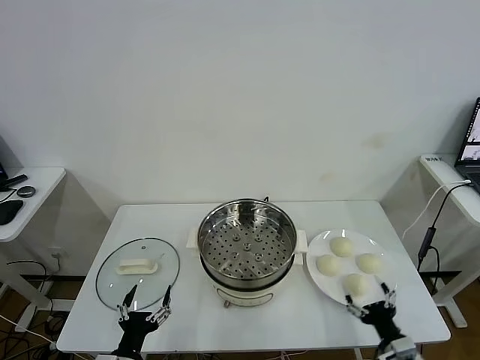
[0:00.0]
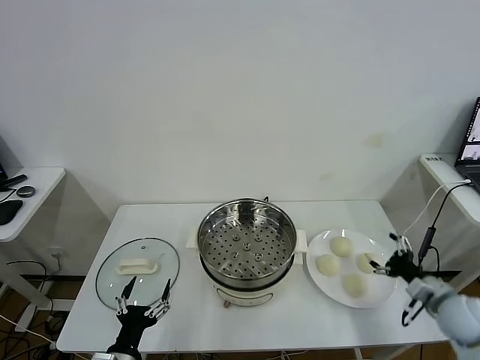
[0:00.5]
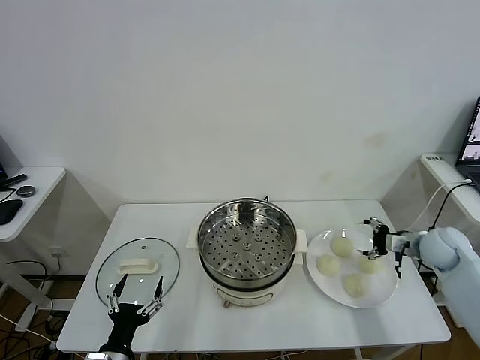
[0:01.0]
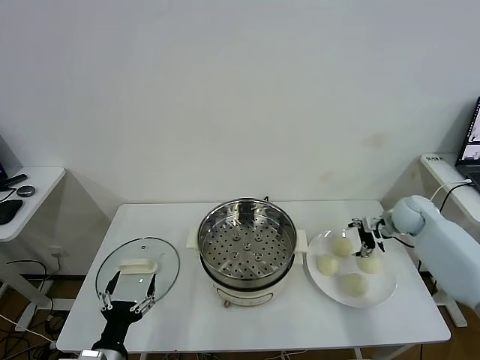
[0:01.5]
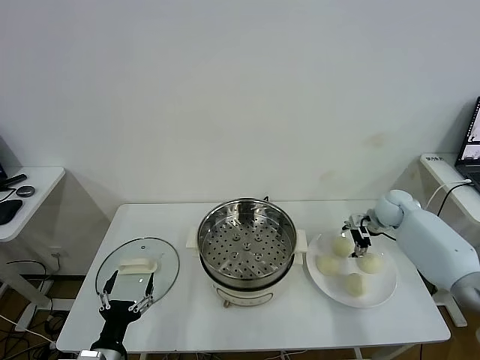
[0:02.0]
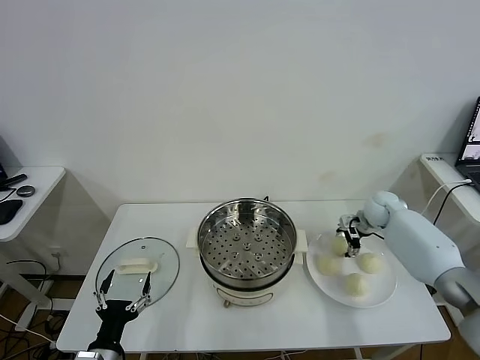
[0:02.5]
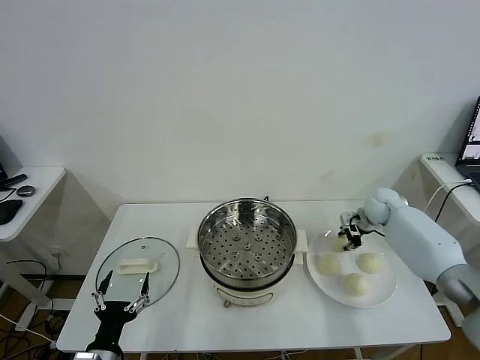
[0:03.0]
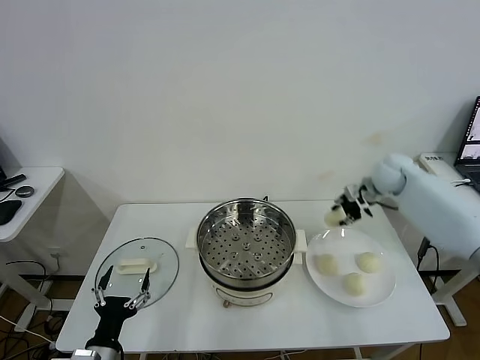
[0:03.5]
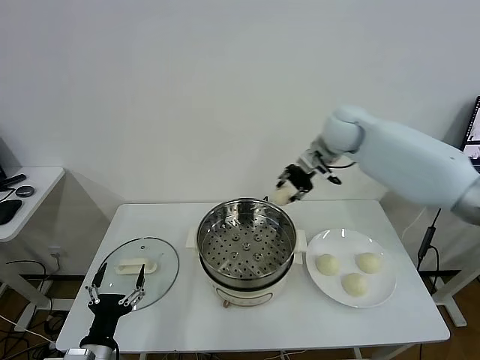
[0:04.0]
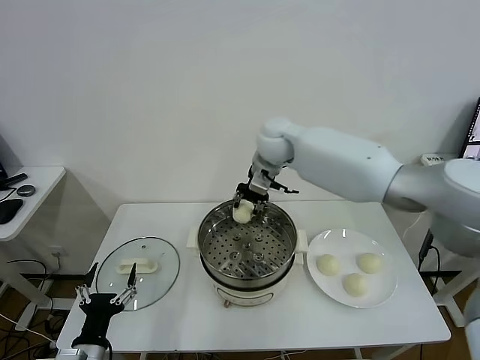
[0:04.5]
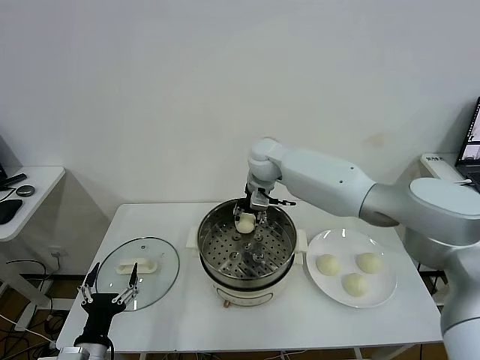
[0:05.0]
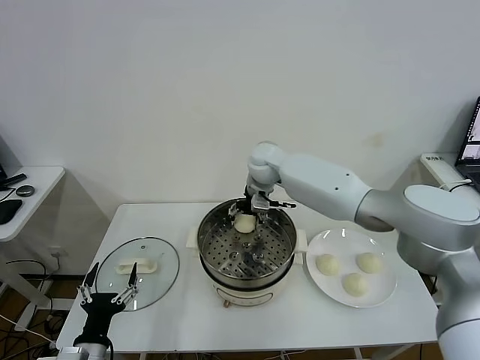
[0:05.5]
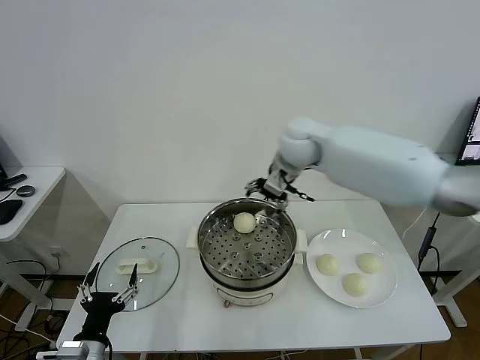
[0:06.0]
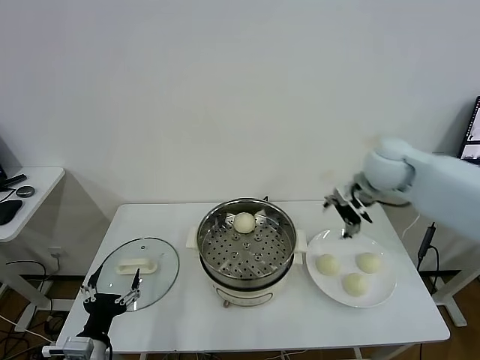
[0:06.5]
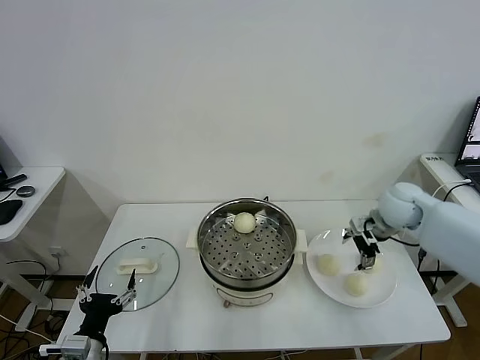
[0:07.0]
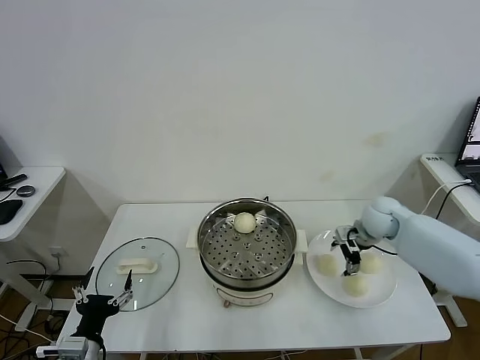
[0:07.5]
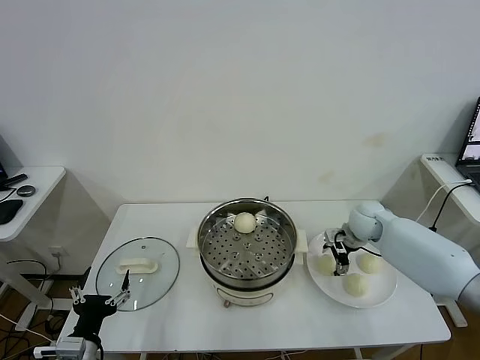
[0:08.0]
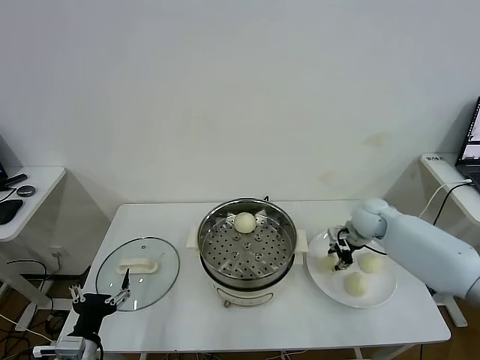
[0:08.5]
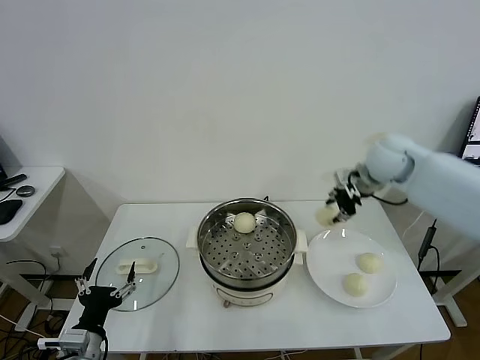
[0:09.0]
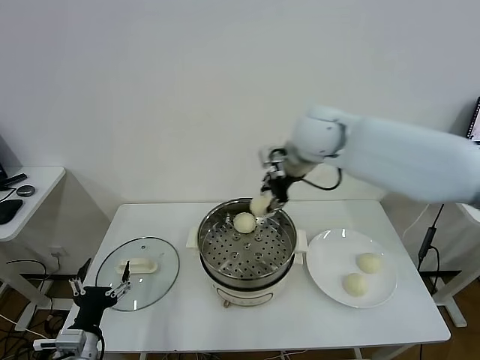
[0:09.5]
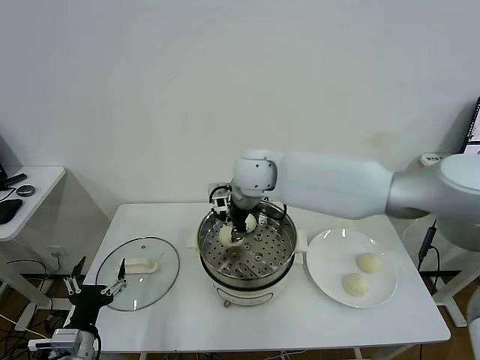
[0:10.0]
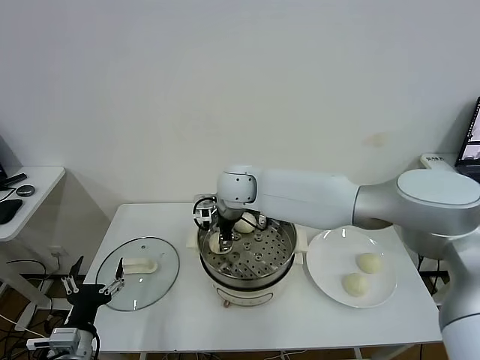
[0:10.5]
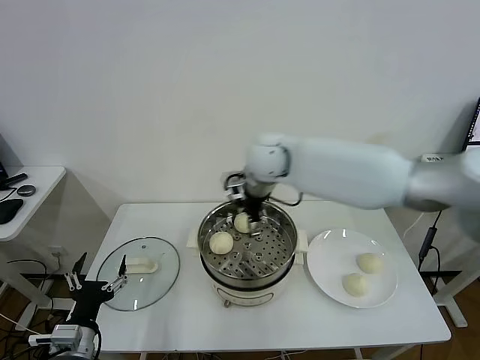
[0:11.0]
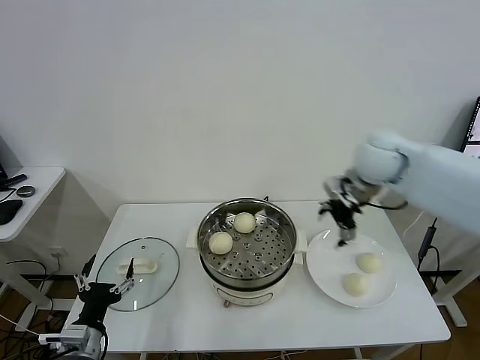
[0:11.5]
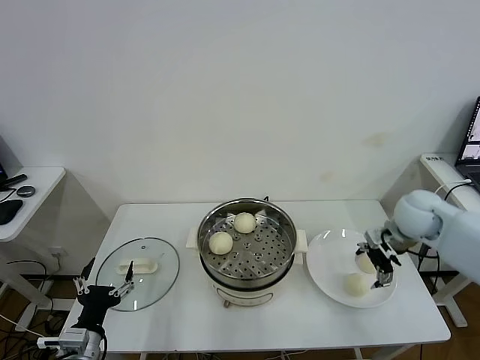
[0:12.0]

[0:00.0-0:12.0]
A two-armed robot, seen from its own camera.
Task of the whole recording: take steamed baozi put them in steamer.
Step, 0:00.0 to 0:02.5: Grasp the baozi in the plate with right gripper.
Step, 0:03.0 to 0:05.5: Place the baozi on the steamer with right gripper.
Step, 0:06.0 to 0:08.0: Grasp the baozi in the plate with right gripper.
Step, 0:08.5 to 0:10.5: Place the baozi on the steamer with right gripper.
0:02.0 to 0:04.0: The right gripper goes approximately 30 cm upward and to the left, and closes its fingers.
0:04.0 to 0:06.0: The right gripper moves to the left, roughly 5 cm, and opens.
0:06.0 to 0:08.0: The right gripper goes about 30 cm downward and to the right.
0:08.0 to 0:10.0: The right gripper travels to the left and upward by about 35 cm, and closes up.
0:10.0 to 0:12.0: The right gripper moves to the right, roughly 35 cm, and opens.

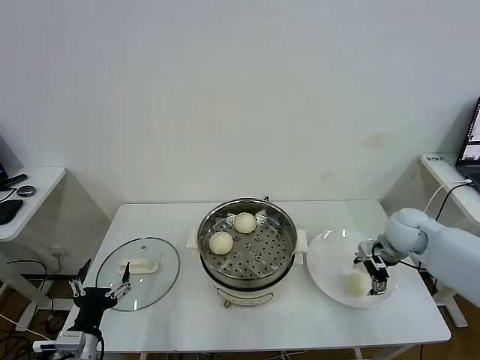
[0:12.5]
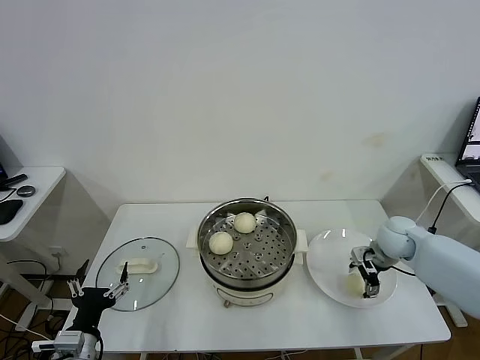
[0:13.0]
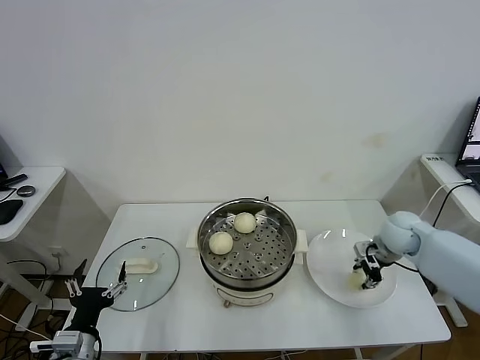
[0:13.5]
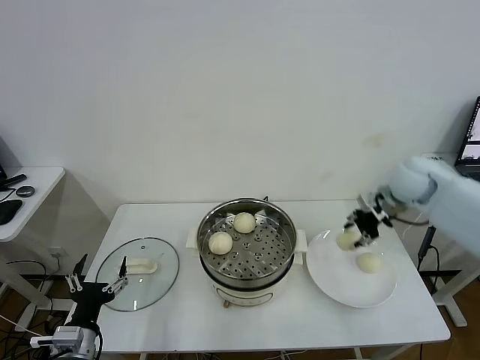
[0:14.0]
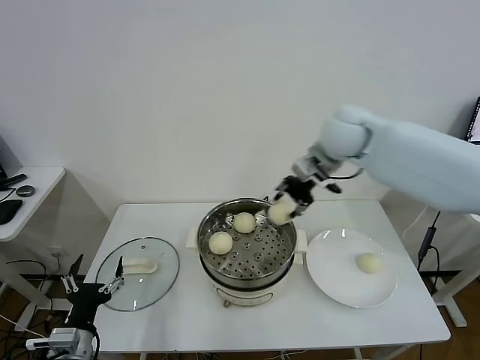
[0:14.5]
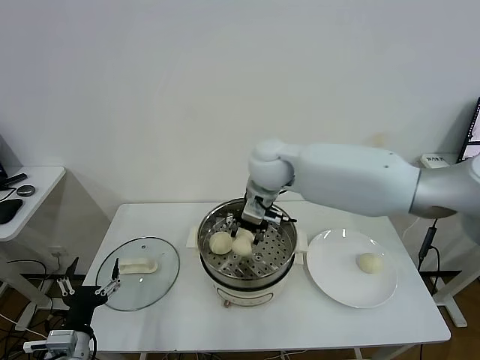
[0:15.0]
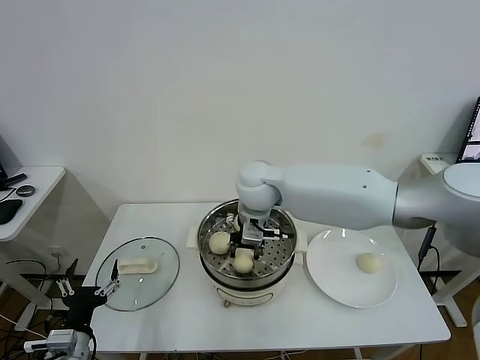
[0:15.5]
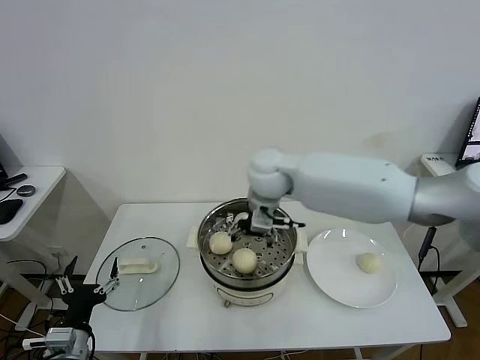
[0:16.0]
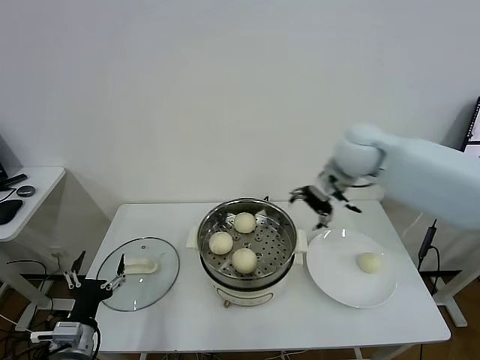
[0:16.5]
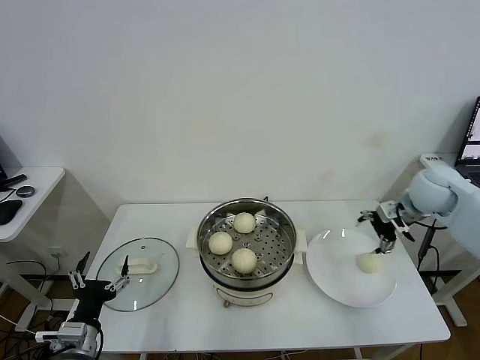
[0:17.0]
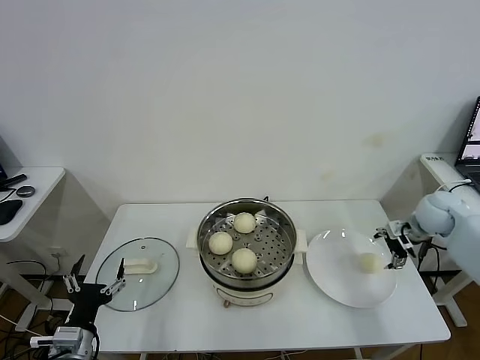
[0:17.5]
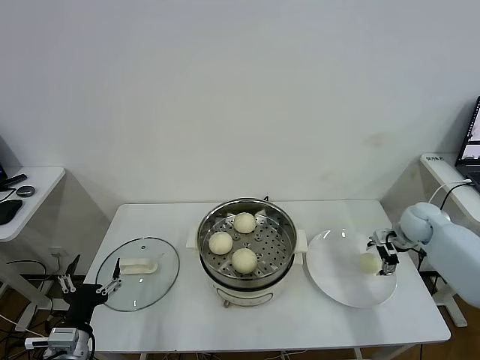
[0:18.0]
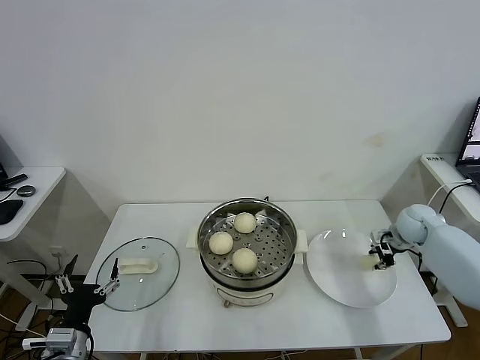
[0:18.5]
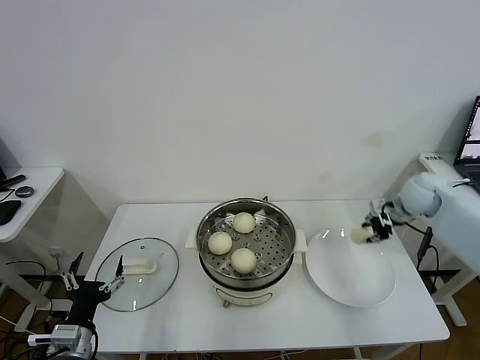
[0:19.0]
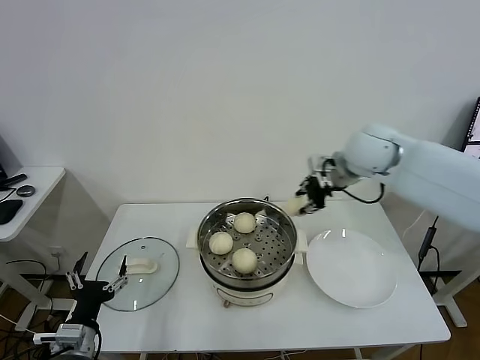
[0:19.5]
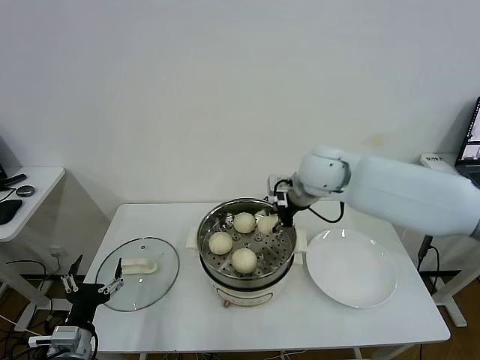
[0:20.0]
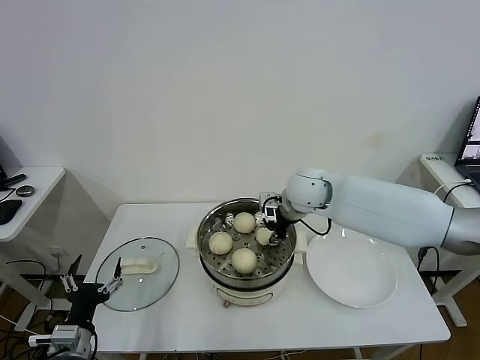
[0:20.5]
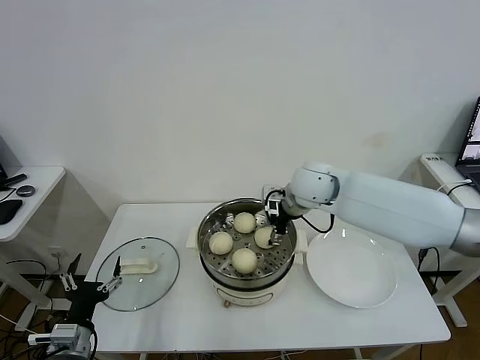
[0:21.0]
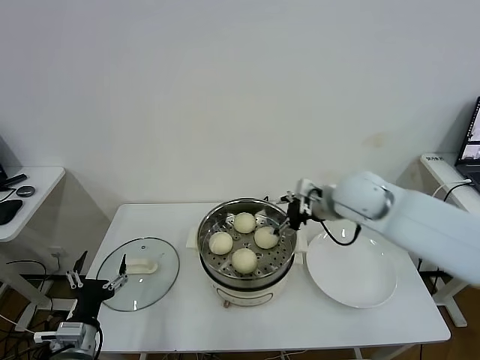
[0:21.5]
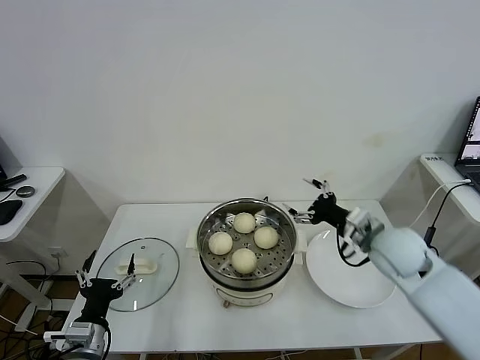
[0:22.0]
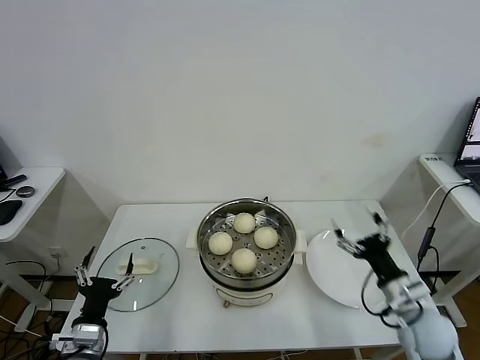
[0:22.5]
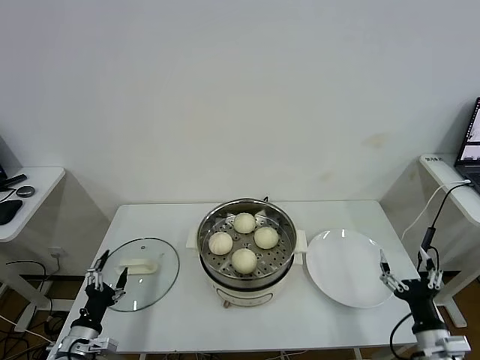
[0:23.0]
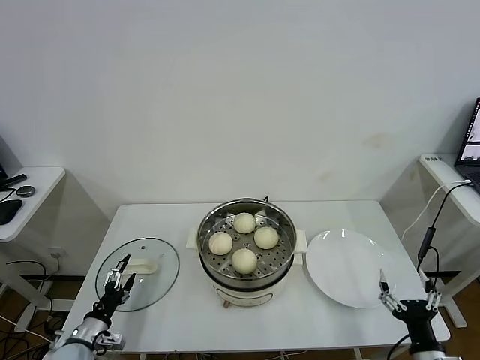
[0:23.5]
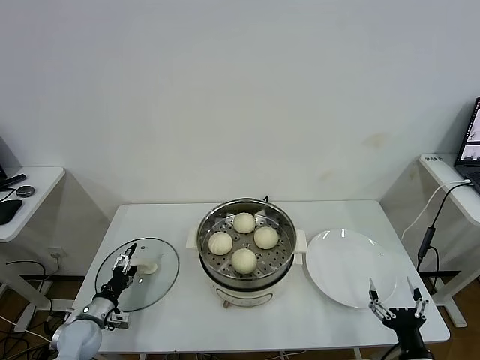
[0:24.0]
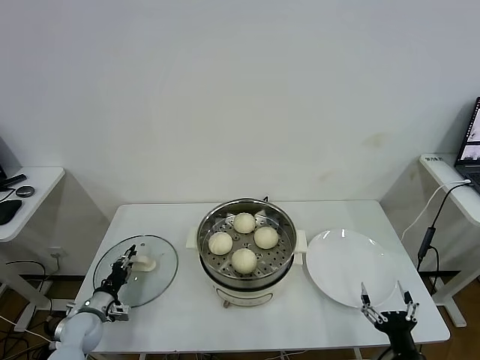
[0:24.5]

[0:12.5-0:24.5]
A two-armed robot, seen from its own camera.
Task of the whole recording: take steamed baozi put them in steamer.
Step, 0:13.5 to 0:16.0: Place the baozi on the steamer with right gripper.
Step, 0:16.5 to 0:18.0: Grasp the baozi in the plate with right gripper.
Step, 0:18.5 to 0:21.0: Place the baozi on the steamer with right gripper.
0:12.5 to 0:14.5: The right gripper travels upward and to the left by approximately 30 cm, and closes.
0:14.5 to 0:16.5: The right gripper reaches some 15 cm to the left, then returns, and opens.
0:16.5 to 0:18.5: The right gripper heads to the right and downward, covering about 30 cm, and closes up.
0:18.5 to 0:20.5: The right gripper heads to the left and upward, covering roughly 35 cm.
0:20.5 to 0:22.5: The right gripper heads backward, to the right and downward, covering some 35 cm, and opens.
0:22.5 to 0:24.5: The right gripper heads backward and downward, covering approximately 20 cm, while the left gripper heads forward, downward and to the left, covering roughly 20 cm, and closes.

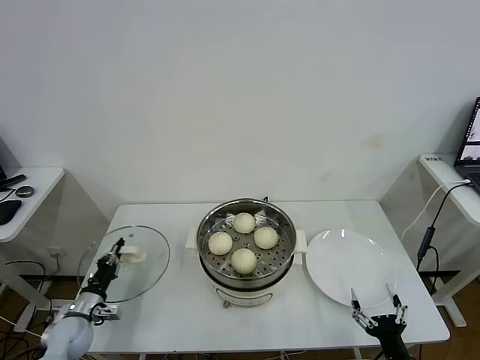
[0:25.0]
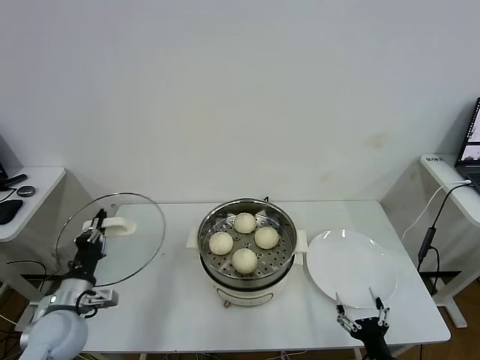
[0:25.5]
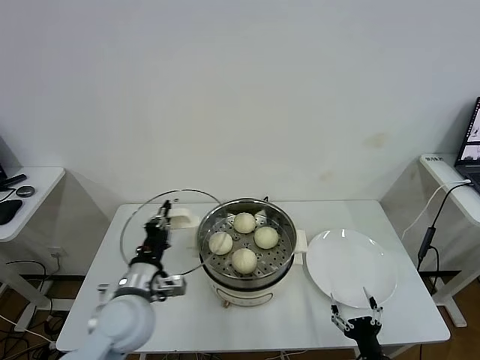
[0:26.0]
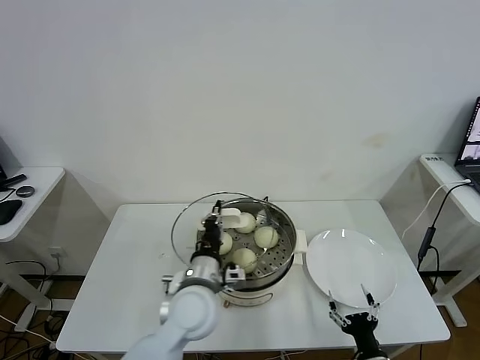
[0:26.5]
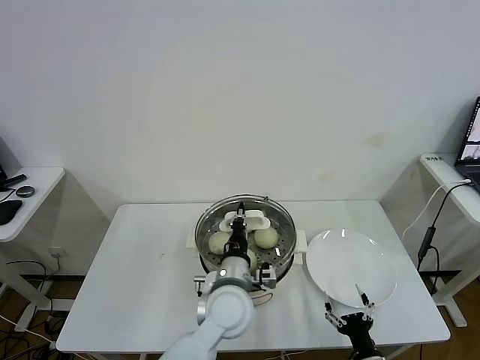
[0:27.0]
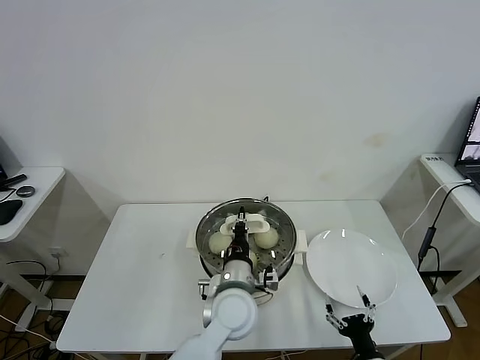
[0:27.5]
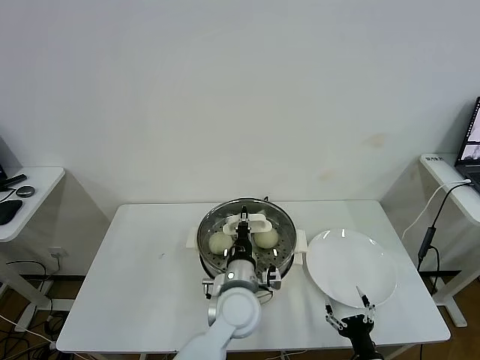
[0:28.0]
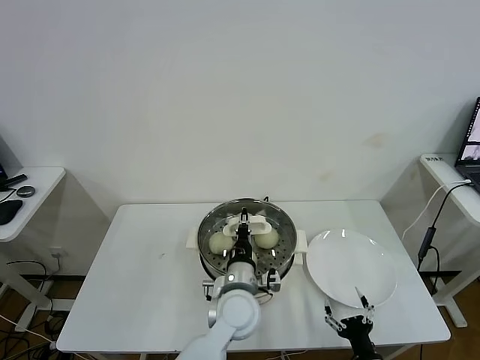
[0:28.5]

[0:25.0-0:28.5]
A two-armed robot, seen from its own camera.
Task of the whole recording: take steamed baozi put them in steamer.
0:25.0 to 0:27.0: The right gripper moves about 5 cm. The left gripper shifts roughly 40 cm to the right and upward.
0:27.0 to 0:28.5: The grippers stay close to where they were, moving slightly.
